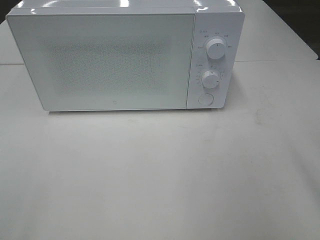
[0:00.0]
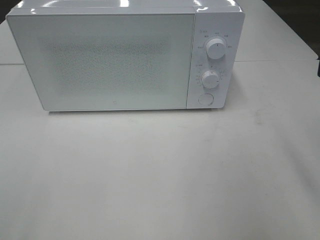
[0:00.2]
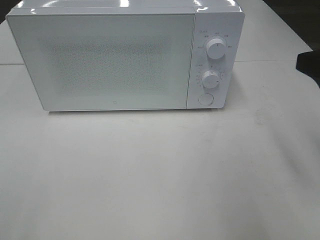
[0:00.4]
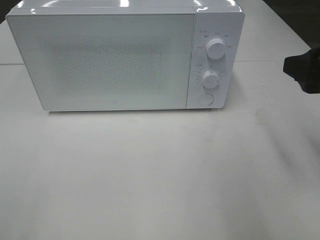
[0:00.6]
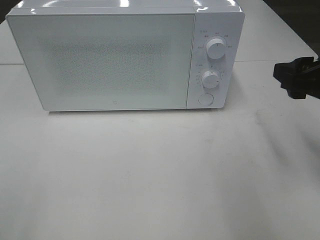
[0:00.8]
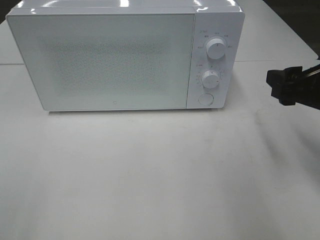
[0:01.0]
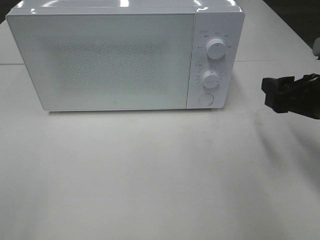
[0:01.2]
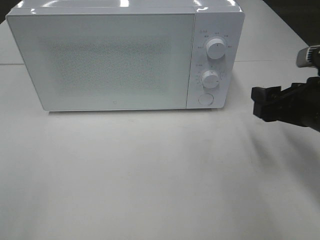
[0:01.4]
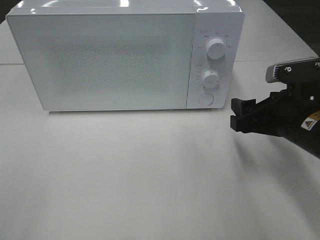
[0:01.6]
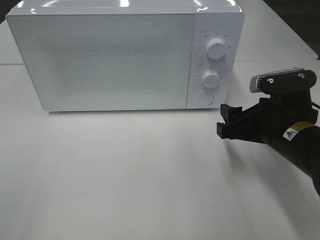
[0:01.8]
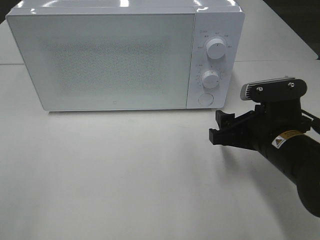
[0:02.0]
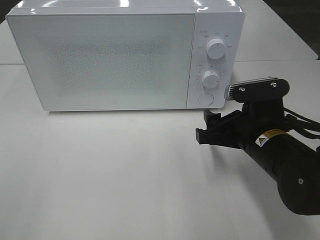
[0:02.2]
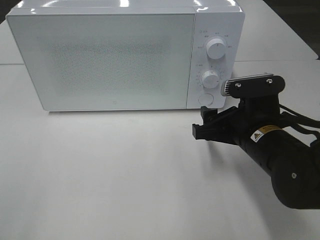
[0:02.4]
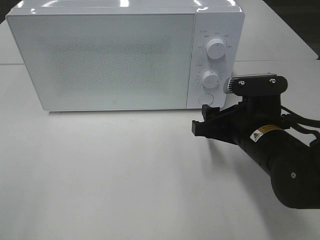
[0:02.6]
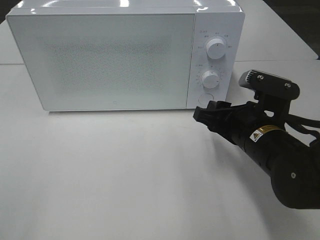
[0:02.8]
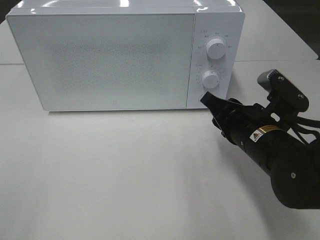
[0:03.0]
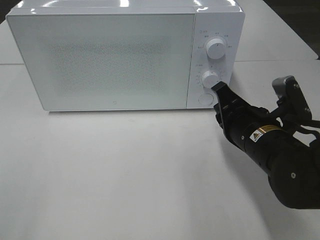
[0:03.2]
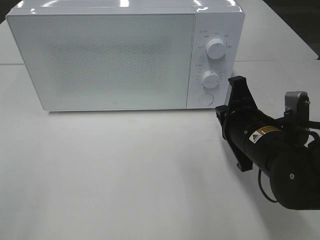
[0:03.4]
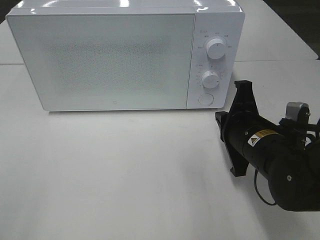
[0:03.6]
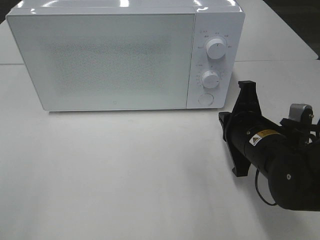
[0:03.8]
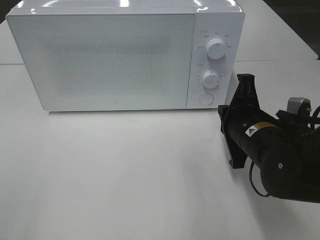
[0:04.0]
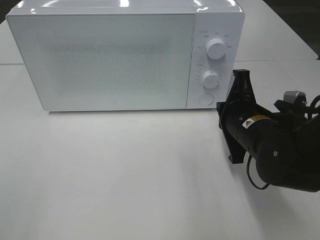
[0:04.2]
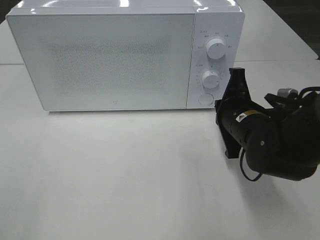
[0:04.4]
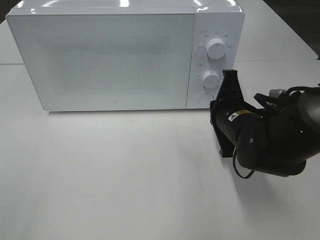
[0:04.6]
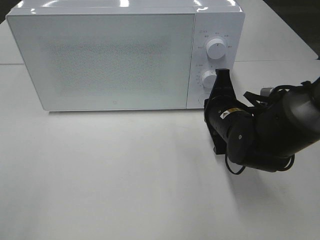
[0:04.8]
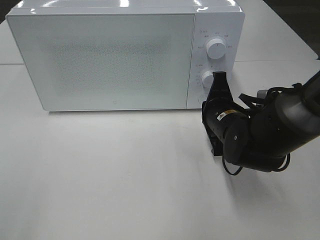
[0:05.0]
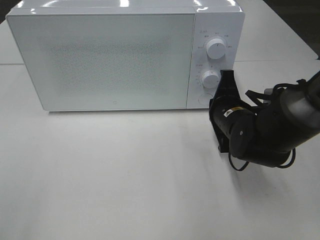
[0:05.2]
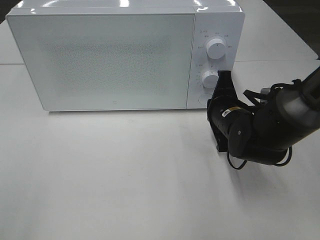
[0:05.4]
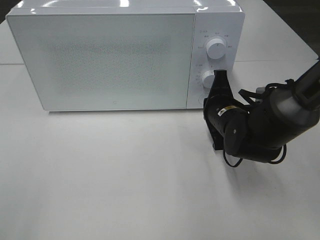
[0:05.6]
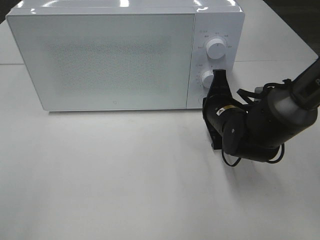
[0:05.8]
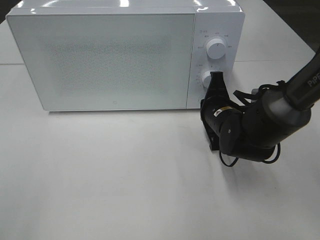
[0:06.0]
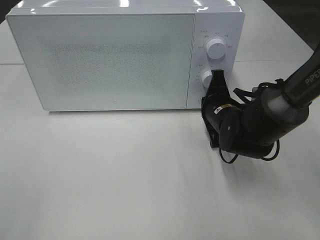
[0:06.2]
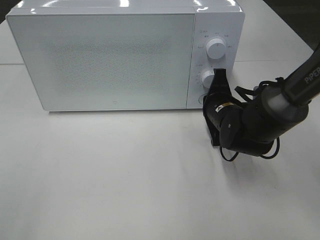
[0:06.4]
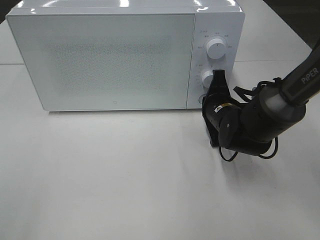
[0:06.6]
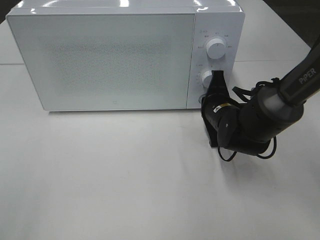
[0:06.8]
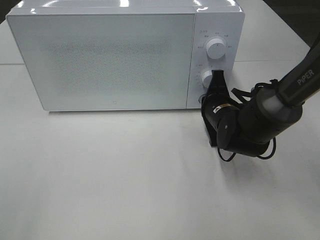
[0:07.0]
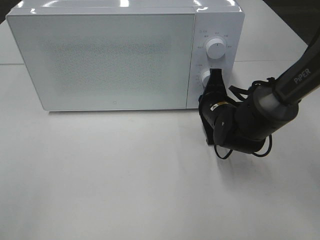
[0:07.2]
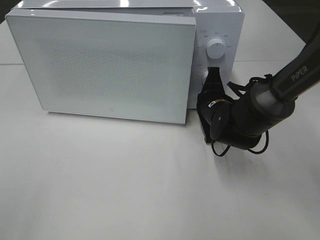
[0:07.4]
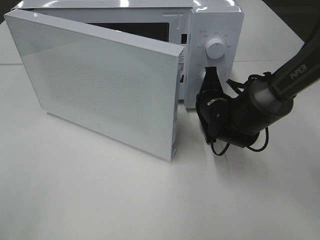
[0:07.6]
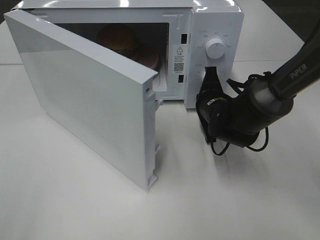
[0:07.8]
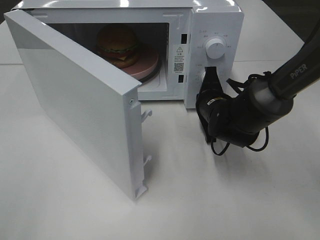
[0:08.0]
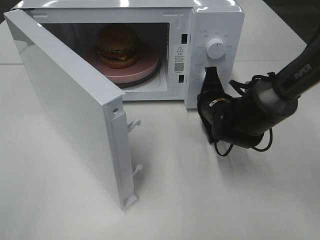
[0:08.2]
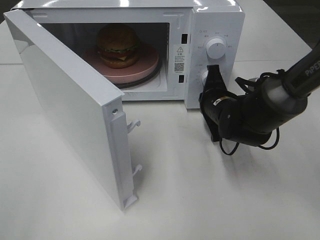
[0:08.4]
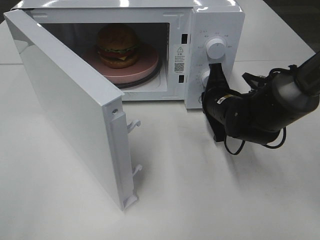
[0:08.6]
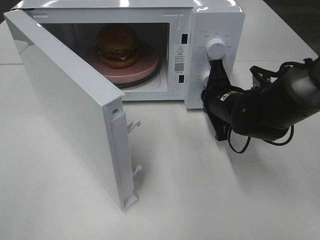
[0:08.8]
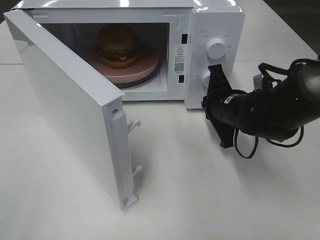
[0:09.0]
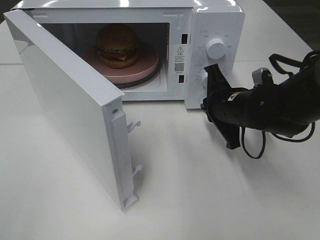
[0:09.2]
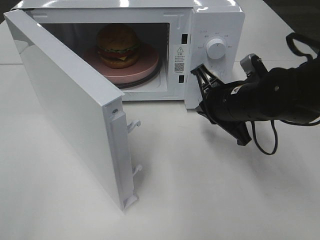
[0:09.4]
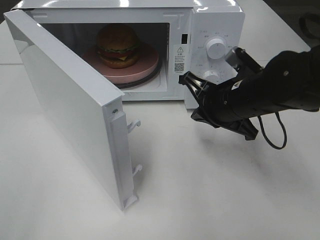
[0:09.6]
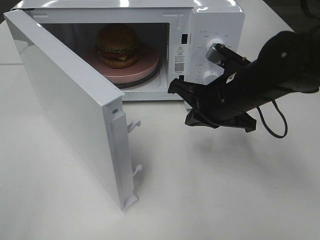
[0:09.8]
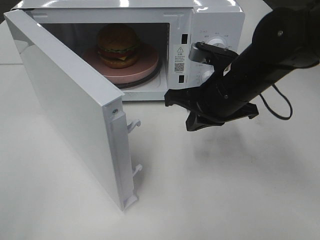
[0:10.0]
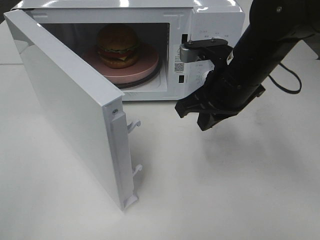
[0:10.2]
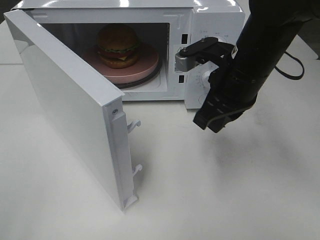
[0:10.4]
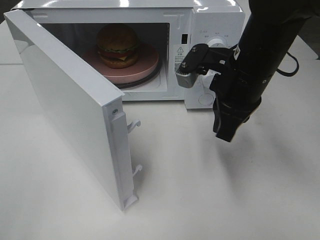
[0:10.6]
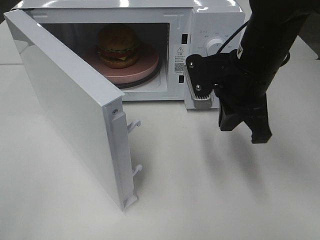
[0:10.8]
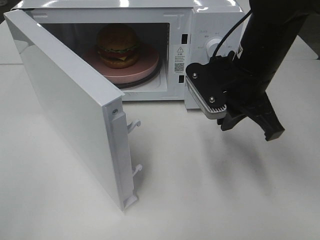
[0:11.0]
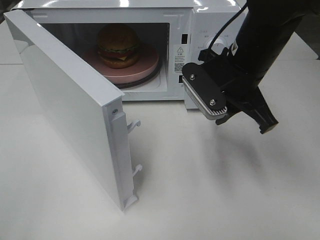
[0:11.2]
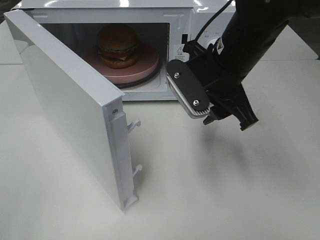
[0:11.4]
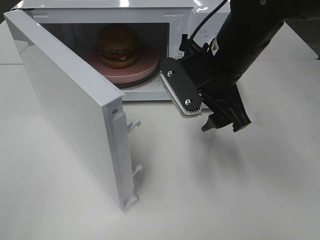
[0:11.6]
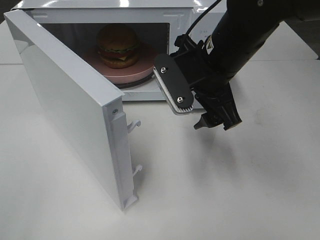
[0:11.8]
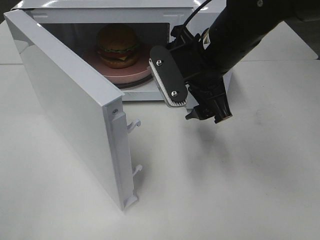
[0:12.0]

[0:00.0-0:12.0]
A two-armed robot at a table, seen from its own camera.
Task of the whole recording: Heat the burger.
Step, 0:00.0 to 0:08.6: Right hand: press the switch.
0:00.0 to 0:01.6: The right gripper heads downward and forward, covering approximately 20 cm.
0:01.6 to 0:03.0: The right gripper heads to the left, covering about 5 cm, and closes up.
0:03.0 to 0:04.4: The right gripper closes its fingers.
0:04.4 to 0:06.0: The right gripper shifts some 5 cm forward.
0:07.6 to 0:09.0: The right gripper changes place by some 5 cm.
0:09.0 to 0:10.4: The right gripper travels upward by approximately 10 cm.
0:10.4 to 0:12.0: The right gripper opens its fingers.

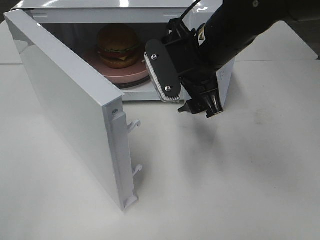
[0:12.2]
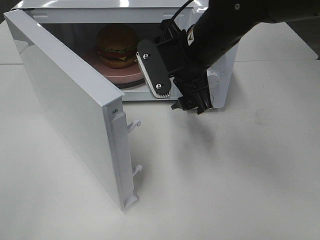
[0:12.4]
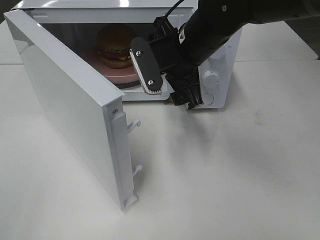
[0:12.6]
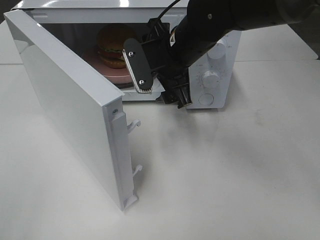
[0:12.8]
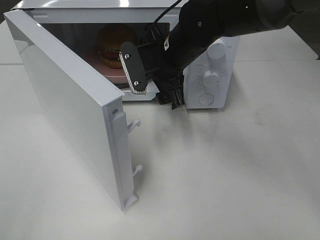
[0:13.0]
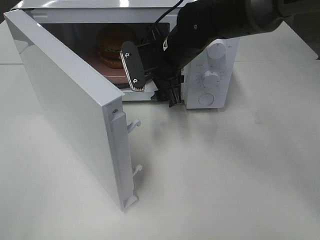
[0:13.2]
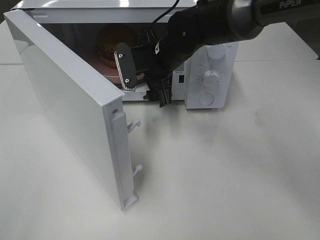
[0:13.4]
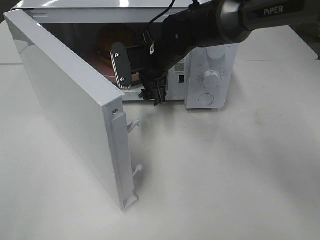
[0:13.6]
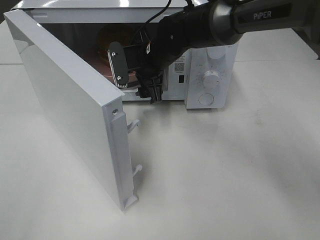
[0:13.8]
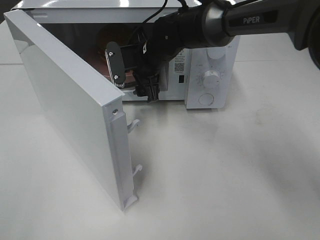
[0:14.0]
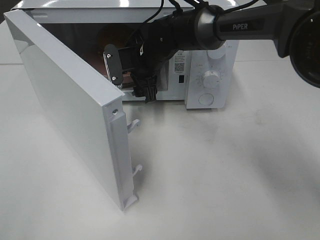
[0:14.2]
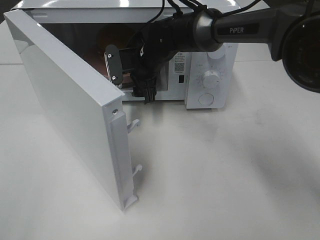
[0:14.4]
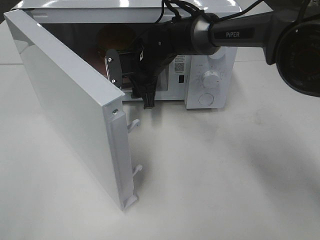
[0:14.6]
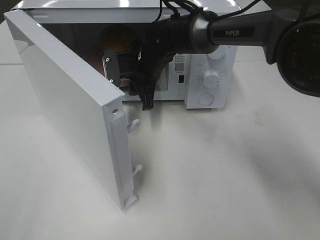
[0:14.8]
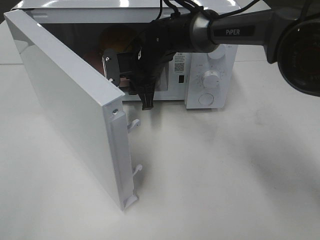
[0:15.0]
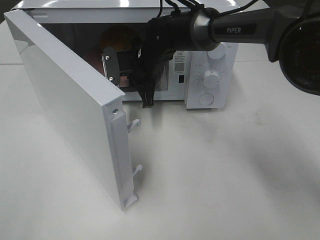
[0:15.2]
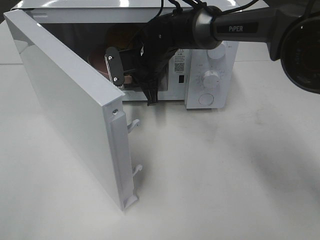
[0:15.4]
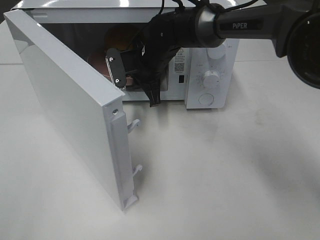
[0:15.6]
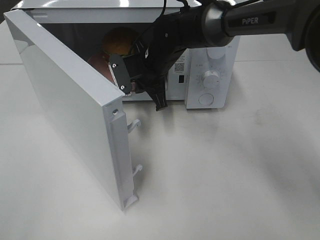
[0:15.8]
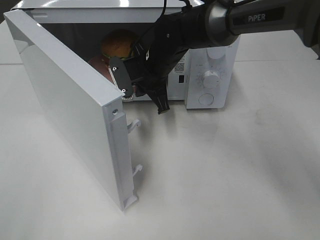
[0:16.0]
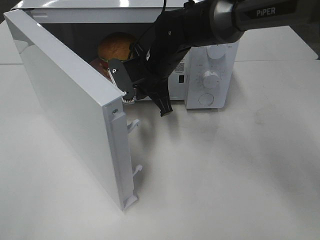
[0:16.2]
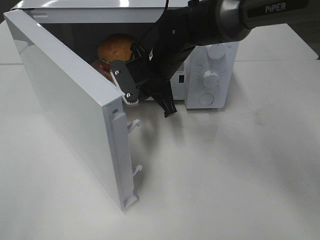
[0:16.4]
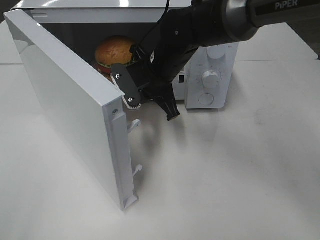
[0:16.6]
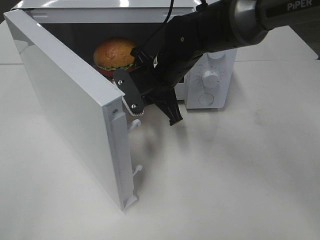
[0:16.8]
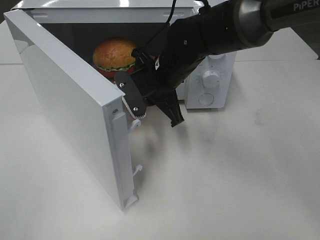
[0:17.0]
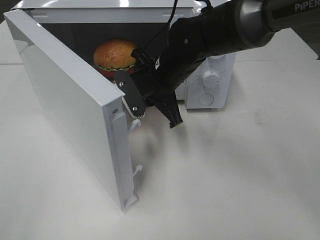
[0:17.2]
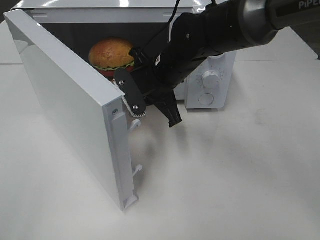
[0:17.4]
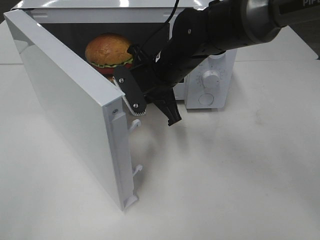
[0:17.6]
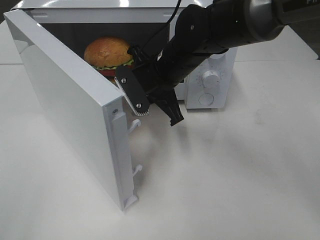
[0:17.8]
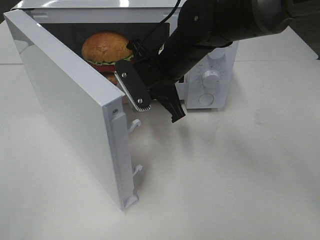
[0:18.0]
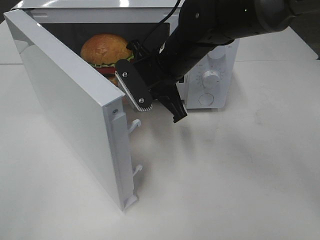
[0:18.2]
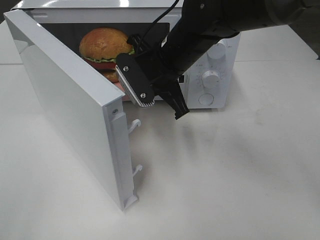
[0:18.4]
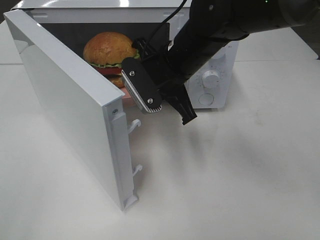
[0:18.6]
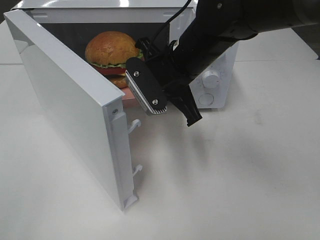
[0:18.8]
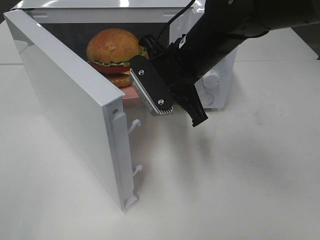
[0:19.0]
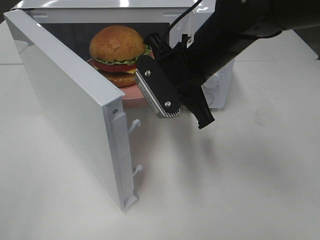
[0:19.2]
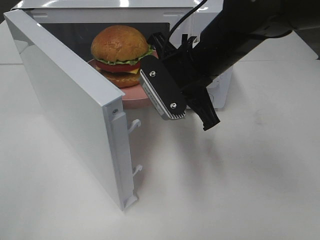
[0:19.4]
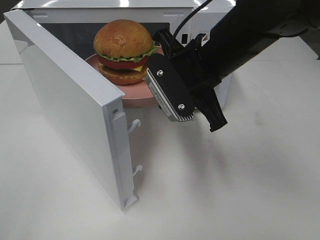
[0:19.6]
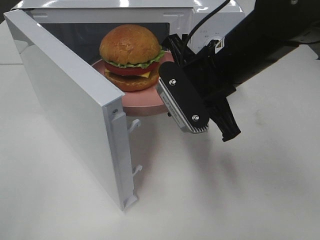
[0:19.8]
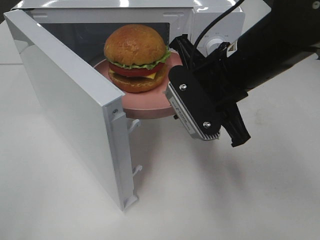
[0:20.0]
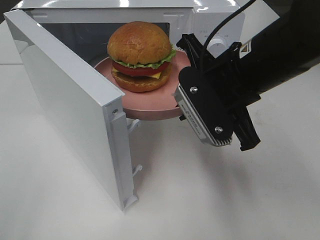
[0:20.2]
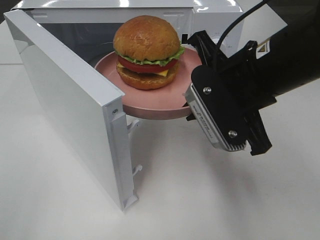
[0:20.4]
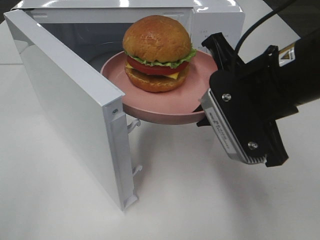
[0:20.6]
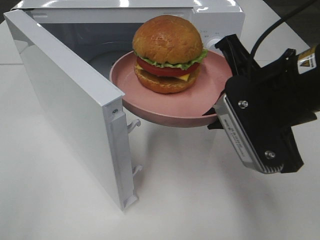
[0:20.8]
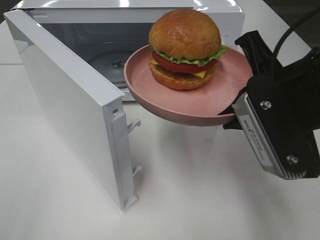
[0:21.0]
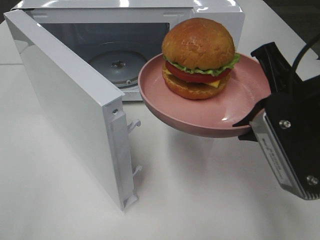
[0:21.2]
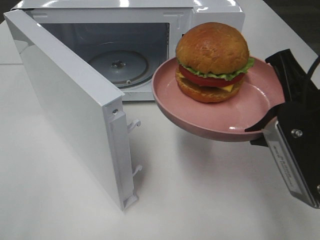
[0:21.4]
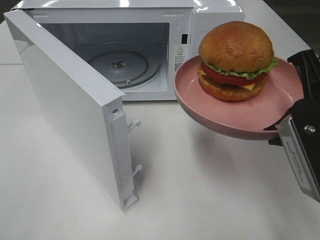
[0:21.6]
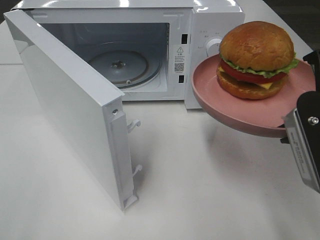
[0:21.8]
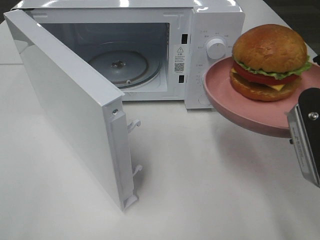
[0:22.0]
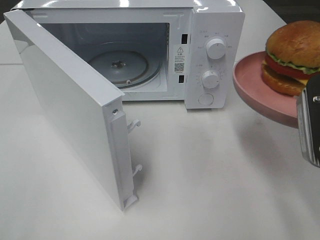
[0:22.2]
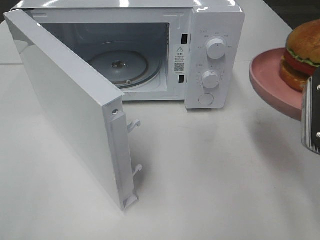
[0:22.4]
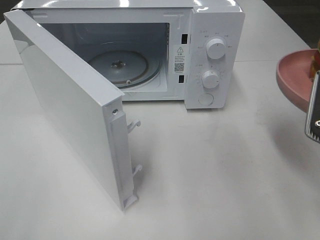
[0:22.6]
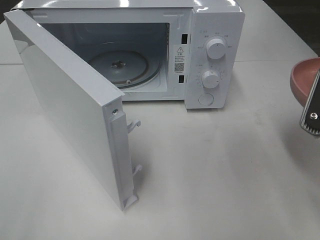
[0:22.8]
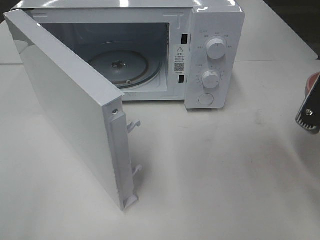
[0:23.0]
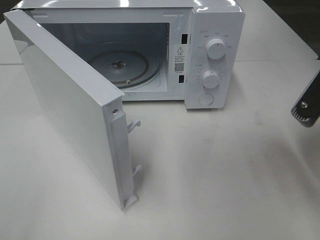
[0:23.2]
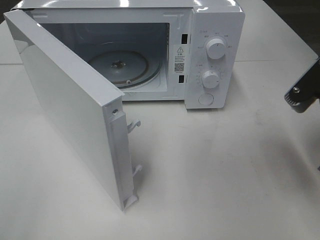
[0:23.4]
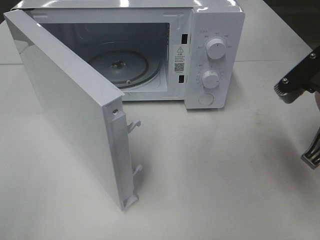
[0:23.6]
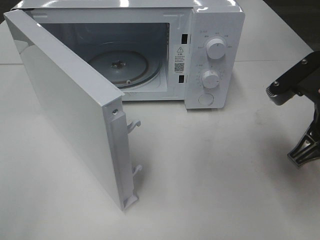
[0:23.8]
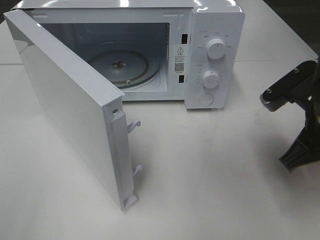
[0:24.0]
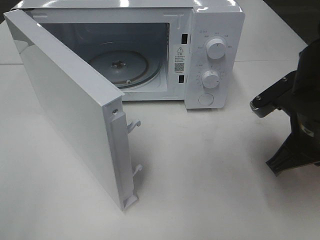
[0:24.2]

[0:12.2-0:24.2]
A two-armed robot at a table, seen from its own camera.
Task of the whole recording: Heat the burger.
Step, 0:12.2 to 0:15.2: Right hand: grab the plate with the hamburger.
0:12.2 to 0:13.8: The right gripper goes roughly 15 cm forward, downward and to the left.
0:13.8 to 0:15.2: The right gripper closes.
0:15.2 to 0:16.6: The right gripper shifts about 5 cm backward.
0:16.6 to 0:18.2: The grippers make only small movements.
0:18.2 to 0:19.8: The right gripper shifts about 10 cm backward and to the right.
0:19.8 to 0:21.2: The right gripper moves backward and to the right, about 15 cm.
0:21.2 to 0:22.6: The right gripper goes roughly 5 cm to the right.
0:22.6 to 0:24.2: The right gripper heads downward and forward, covering about 10 cm.
